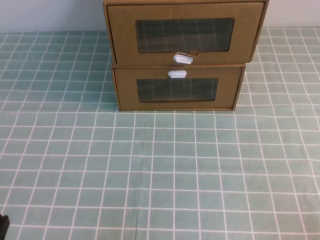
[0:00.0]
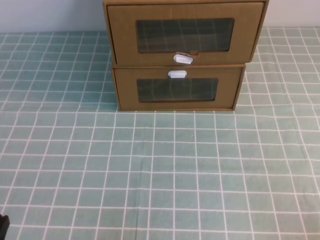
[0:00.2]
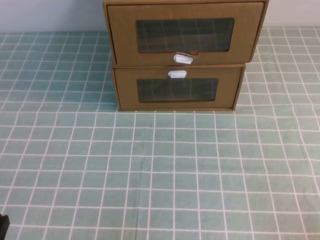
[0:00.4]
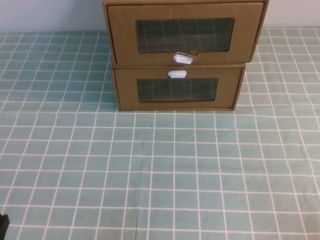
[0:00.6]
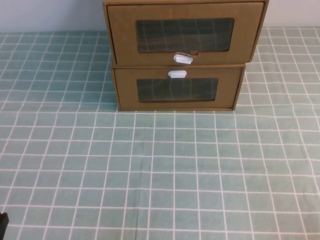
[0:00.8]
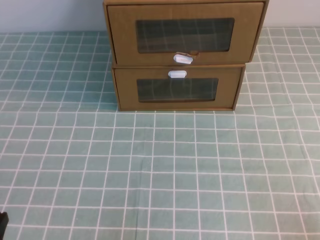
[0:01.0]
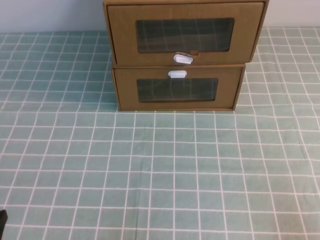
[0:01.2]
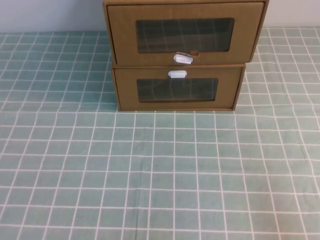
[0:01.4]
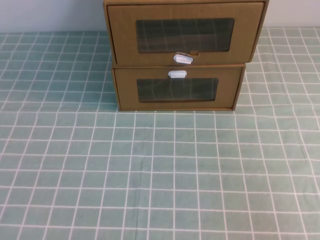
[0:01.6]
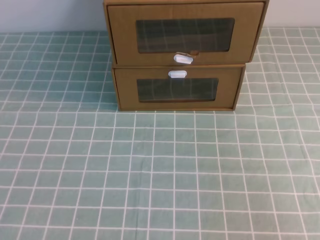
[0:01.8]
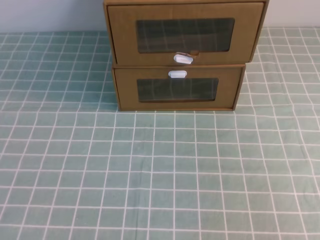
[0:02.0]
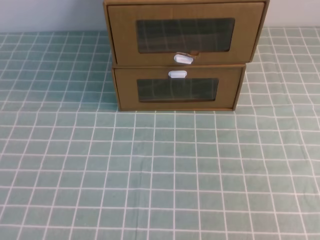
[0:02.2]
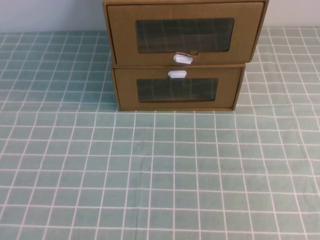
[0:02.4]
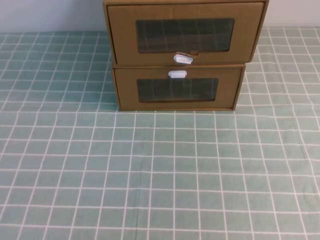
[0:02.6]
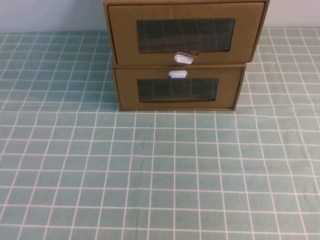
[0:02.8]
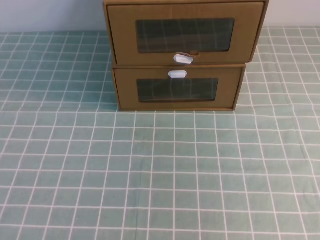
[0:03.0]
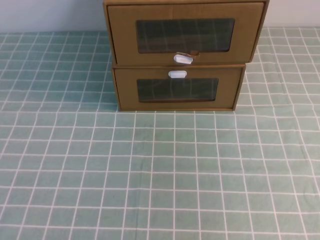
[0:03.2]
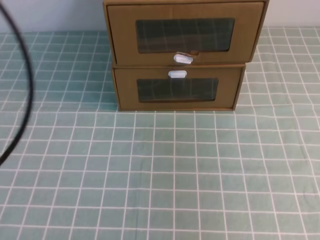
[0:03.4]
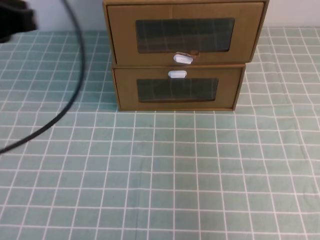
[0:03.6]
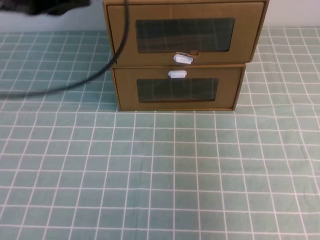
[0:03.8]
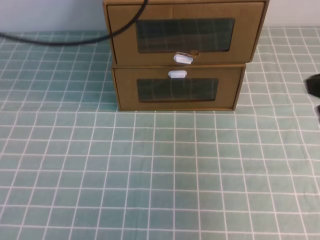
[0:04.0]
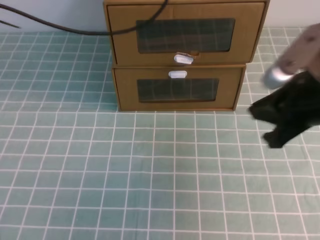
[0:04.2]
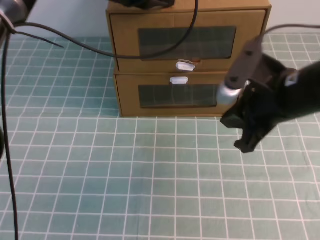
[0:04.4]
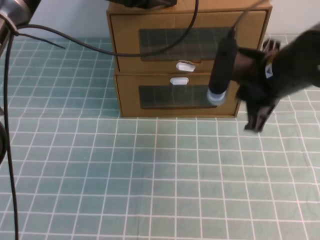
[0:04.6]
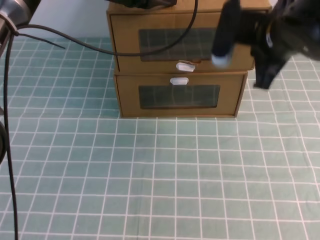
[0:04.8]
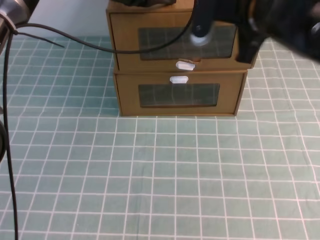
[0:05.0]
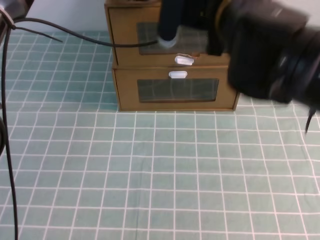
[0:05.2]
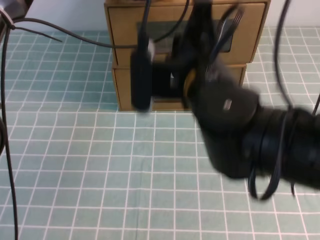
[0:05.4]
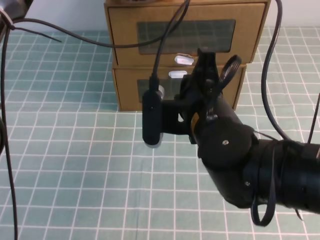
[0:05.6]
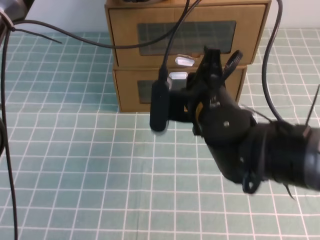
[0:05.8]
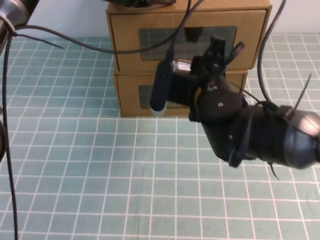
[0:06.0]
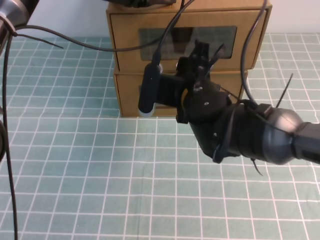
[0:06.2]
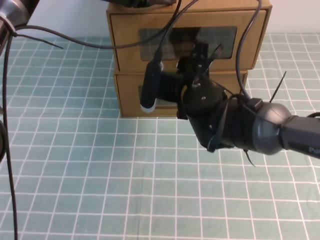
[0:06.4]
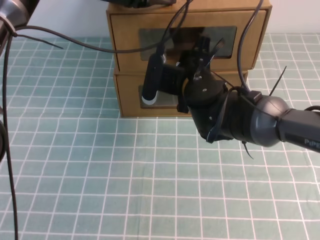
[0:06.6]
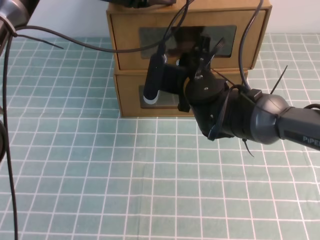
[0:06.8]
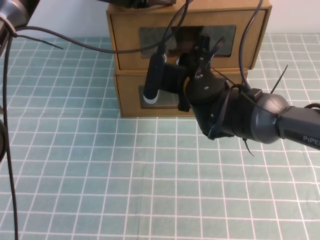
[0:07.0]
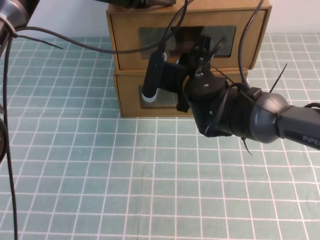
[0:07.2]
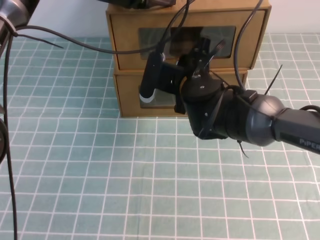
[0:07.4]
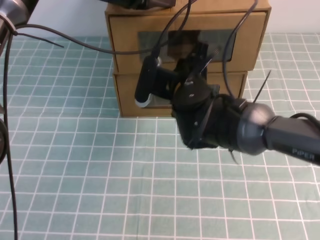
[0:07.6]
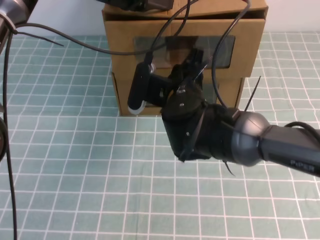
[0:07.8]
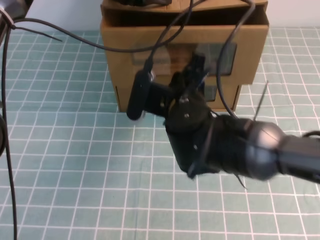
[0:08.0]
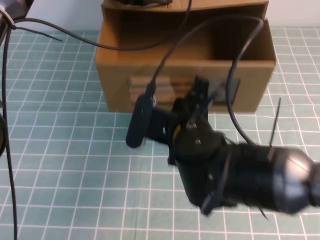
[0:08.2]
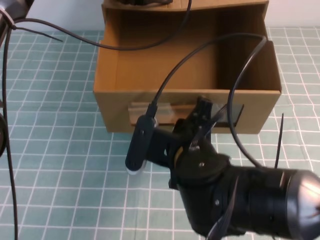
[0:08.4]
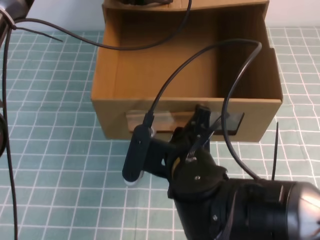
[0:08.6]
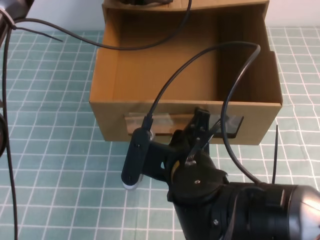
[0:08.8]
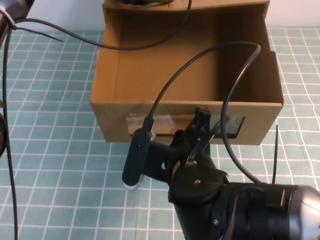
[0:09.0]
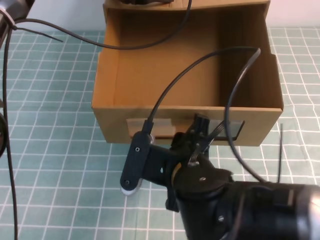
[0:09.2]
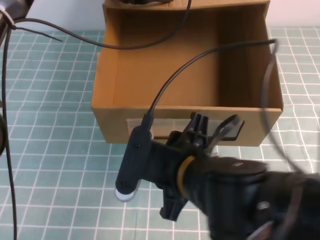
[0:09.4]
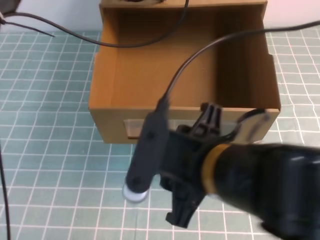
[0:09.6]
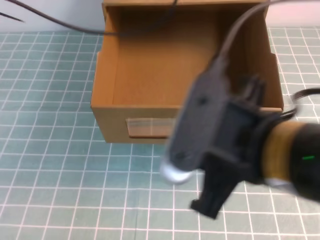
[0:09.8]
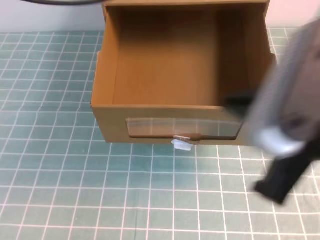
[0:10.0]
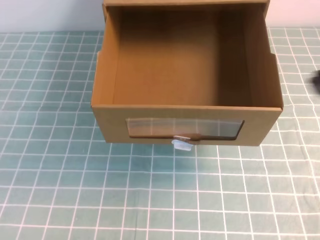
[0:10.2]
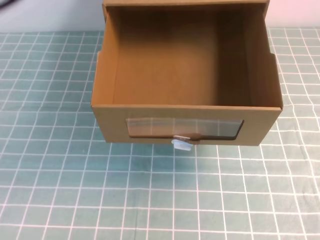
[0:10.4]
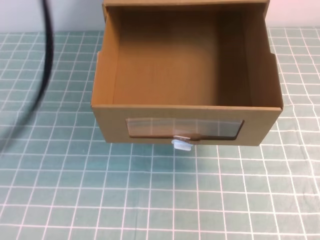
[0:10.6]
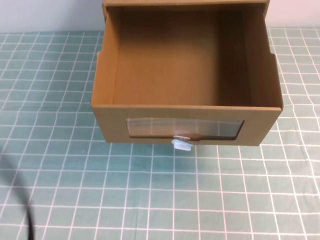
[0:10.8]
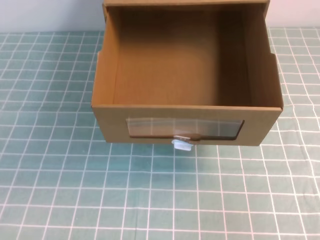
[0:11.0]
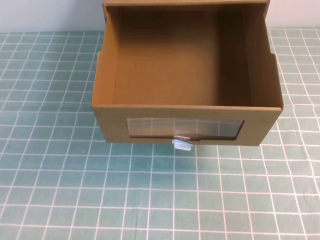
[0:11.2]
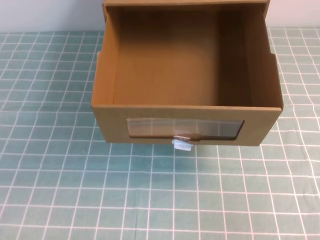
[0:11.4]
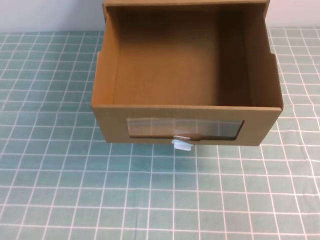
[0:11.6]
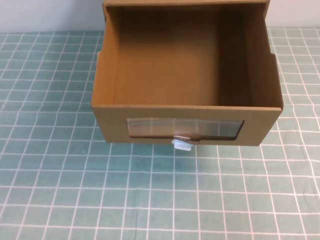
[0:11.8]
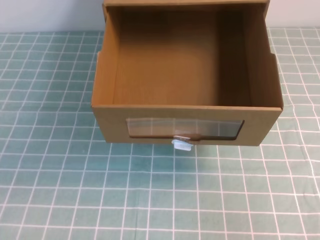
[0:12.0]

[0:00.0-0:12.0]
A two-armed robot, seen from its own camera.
Task of the whole recording: open the shoebox on the cyan tablecloth.
0:03.0 to 0:04.4: The right gripper goes roughly 30 cm forward, downward and to the left, while the left gripper travels forward and to the right by roughly 40 cm.
0:04.4 to 0:06.0: The right gripper moves to the left, some 10 cm, and opens up.
0:06.0 to 0:07.6: The right gripper shifts by about 5 cm, and opens, then closes again.
0:07.6 to 0:09.0: The right gripper shifts roughly 15 cm backward.
0:09.0 to 0:10.4: The right gripper shifts some 30 cm to the right, upward and backward, and closes its fingers. The left gripper is displaced backward, upward and to the left by some 35 cm.
0:10.4 to 0:12.0: The right gripper moves downward, roughly 15 cm, while the left gripper travels backward and downward by approximately 25 cm.

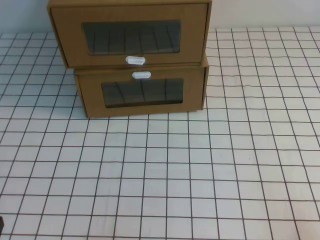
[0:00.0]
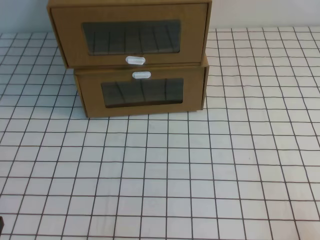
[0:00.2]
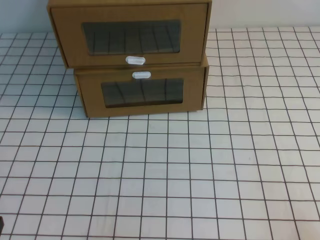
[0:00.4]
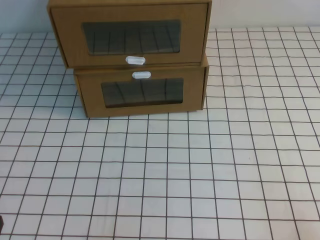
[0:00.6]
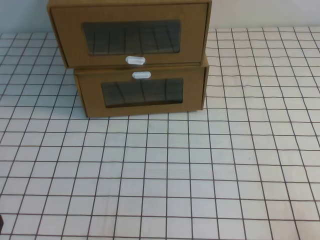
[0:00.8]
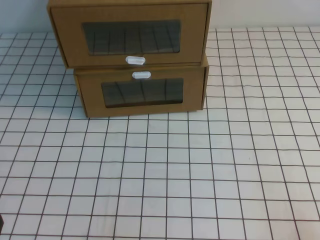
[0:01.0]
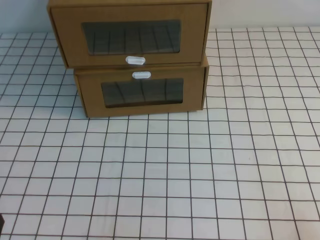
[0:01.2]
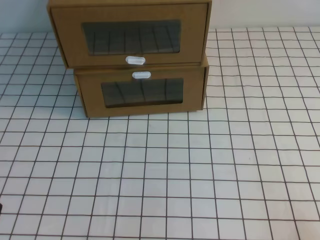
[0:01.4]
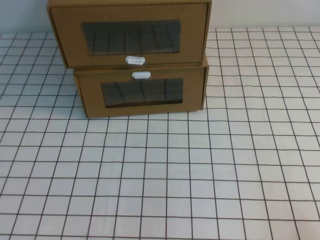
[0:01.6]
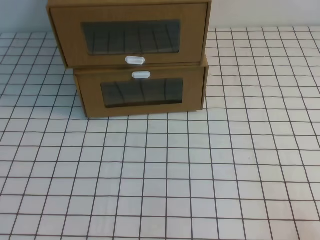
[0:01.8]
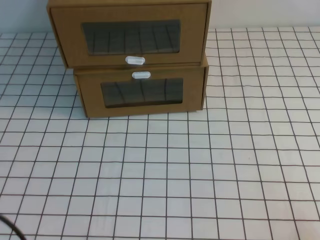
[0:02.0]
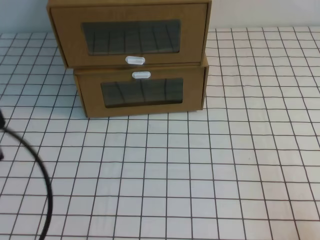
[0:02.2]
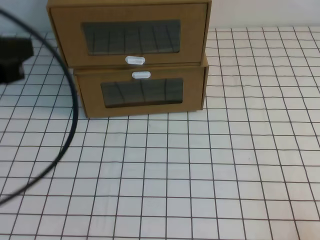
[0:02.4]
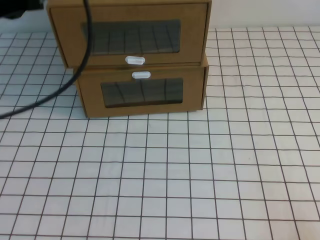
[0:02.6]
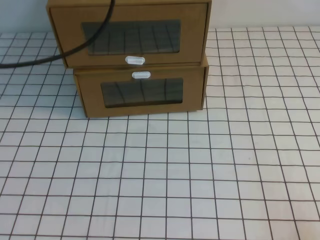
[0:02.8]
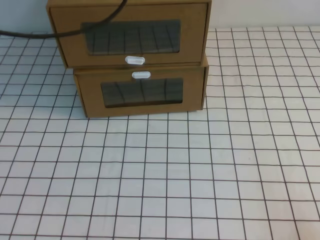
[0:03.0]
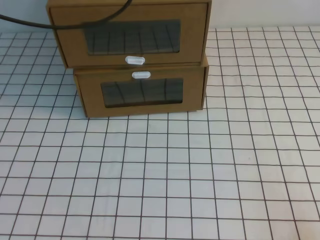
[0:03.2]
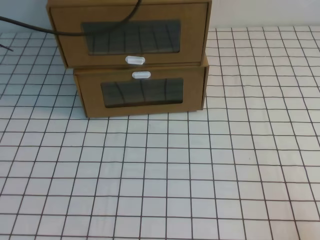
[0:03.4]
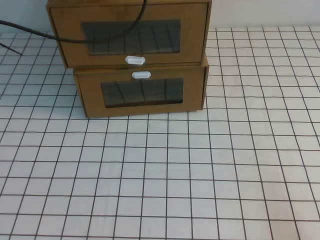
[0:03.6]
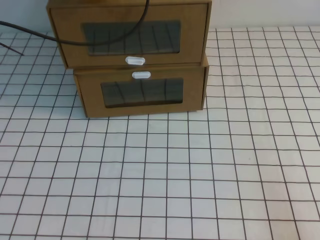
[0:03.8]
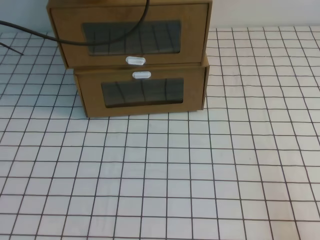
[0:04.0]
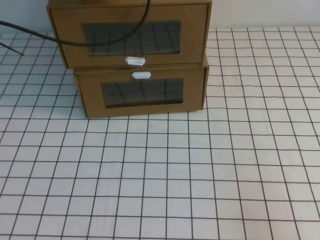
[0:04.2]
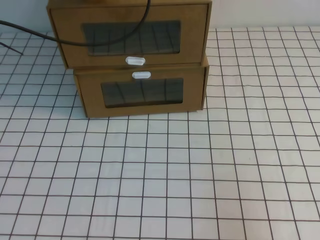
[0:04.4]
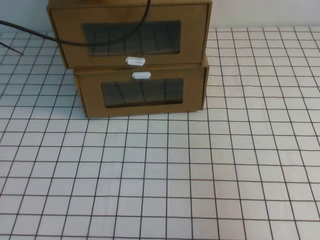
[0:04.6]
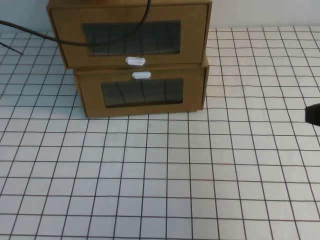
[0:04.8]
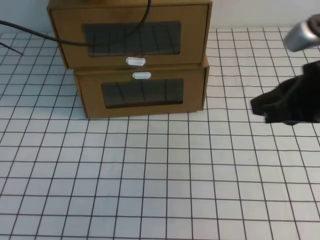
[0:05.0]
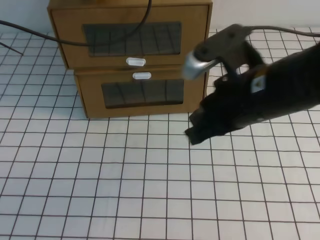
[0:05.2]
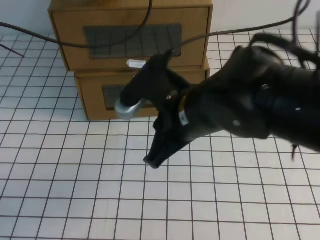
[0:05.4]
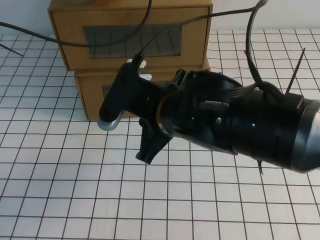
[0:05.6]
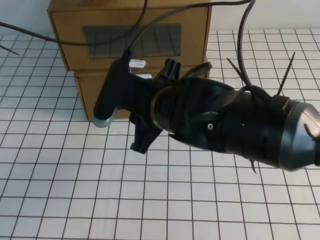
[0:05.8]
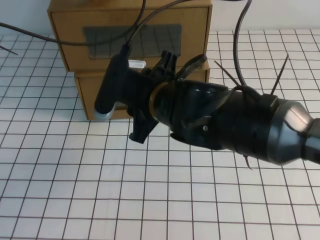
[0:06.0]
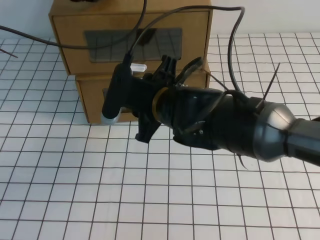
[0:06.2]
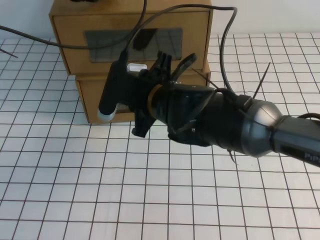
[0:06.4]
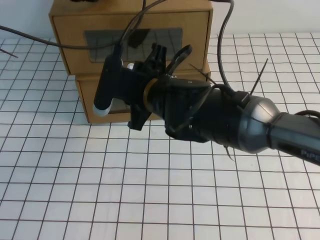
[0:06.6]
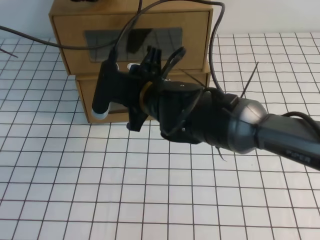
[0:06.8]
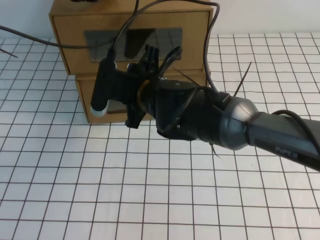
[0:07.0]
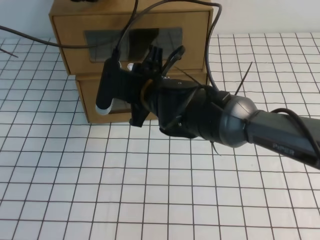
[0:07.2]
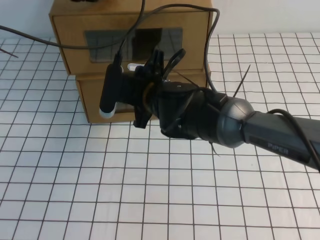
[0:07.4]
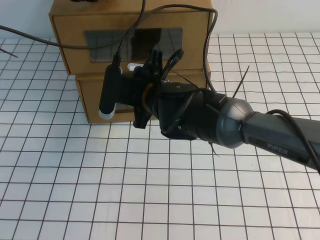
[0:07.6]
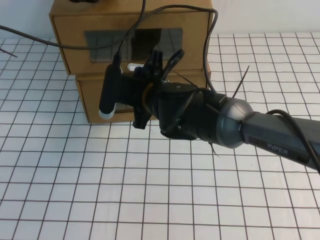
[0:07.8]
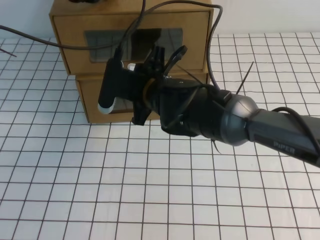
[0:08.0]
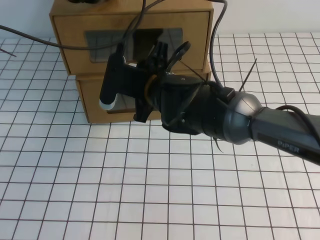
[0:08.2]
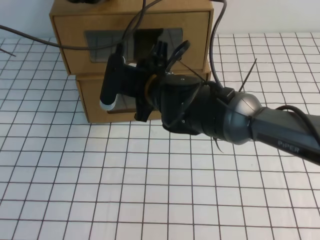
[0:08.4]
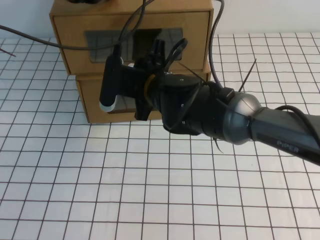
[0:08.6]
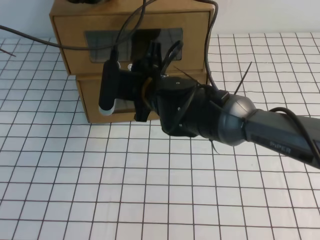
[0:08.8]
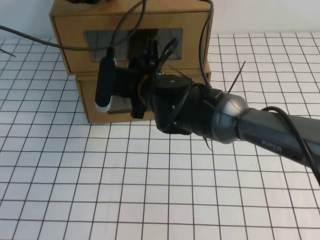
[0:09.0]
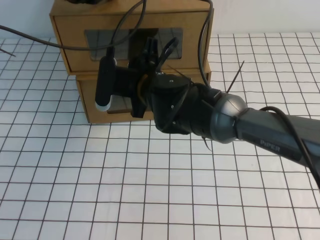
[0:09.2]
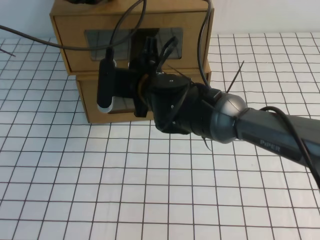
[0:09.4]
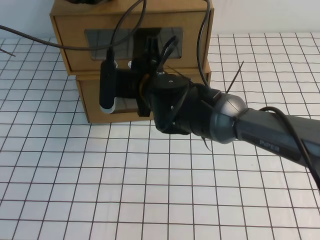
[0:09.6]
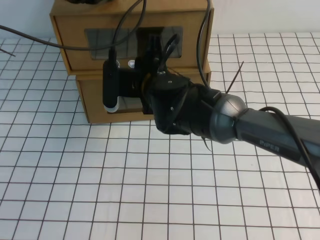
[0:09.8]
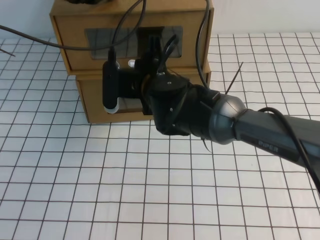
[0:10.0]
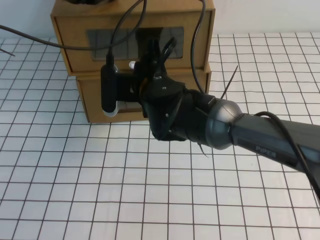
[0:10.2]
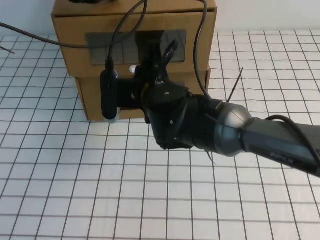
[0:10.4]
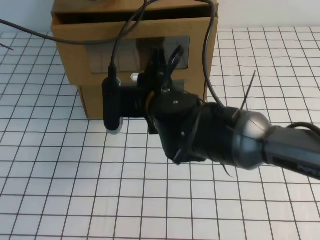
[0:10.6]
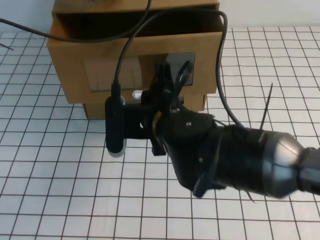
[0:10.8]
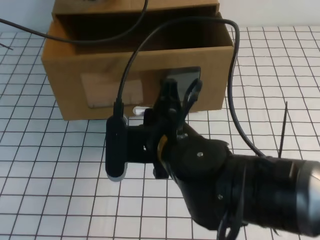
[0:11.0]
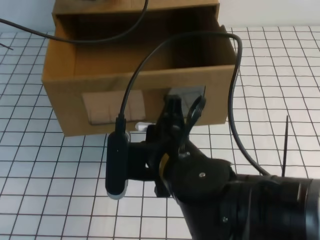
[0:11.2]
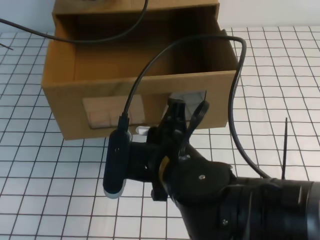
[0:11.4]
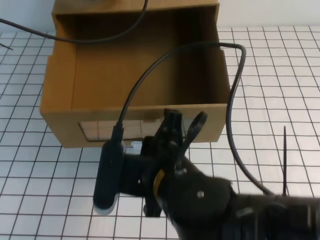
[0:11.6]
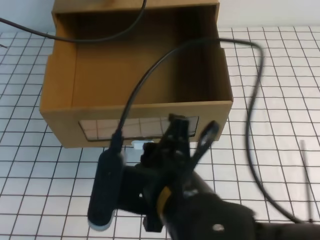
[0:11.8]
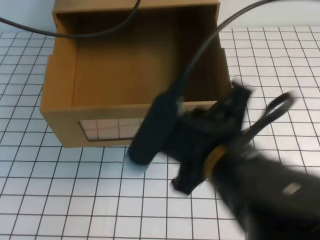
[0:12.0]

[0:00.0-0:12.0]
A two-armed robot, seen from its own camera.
Task of the whole recording: open the shoebox on the white tablecloth.
0:03.0 to 0:04.4: The right gripper travels upward by roughly 10 cm. Meanwhile the left gripper shifts some 10 cm forward and downward.
0:04.4 to 0:06.0: The right gripper travels to the left and forward by approximately 35 cm, and opens.
0:06.0 to 0:07.6: The right gripper goes about 5 cm forward.
0:07.6 to 0:09.0: The grippers move only a little.
0:09.0 to 0:10.4: The right gripper closes its fingers.
0:10.4 to 0:12.0: The right gripper travels backward and to the right by about 20 cm. Meanwhile the left gripper changes place by roughly 5 cm.
